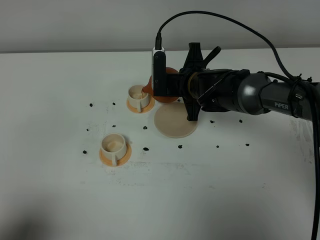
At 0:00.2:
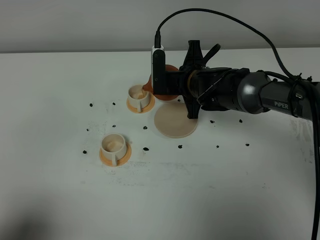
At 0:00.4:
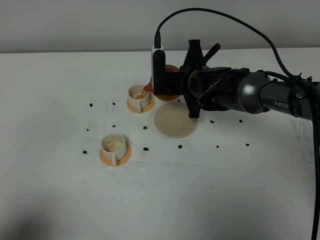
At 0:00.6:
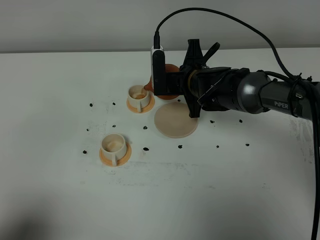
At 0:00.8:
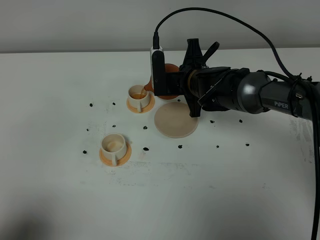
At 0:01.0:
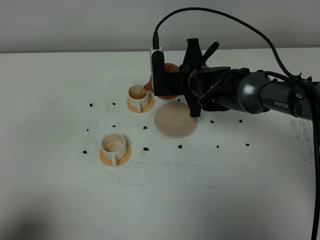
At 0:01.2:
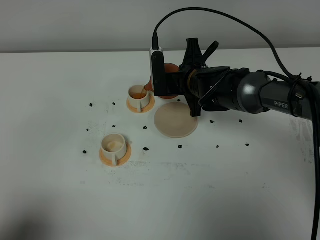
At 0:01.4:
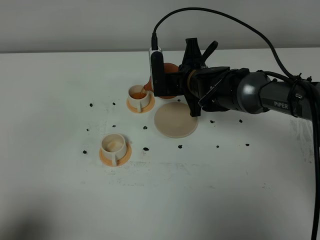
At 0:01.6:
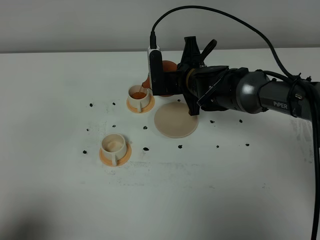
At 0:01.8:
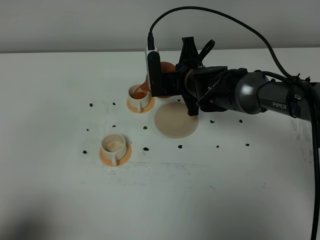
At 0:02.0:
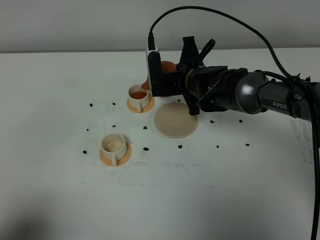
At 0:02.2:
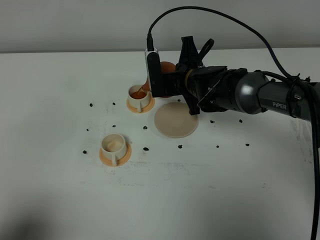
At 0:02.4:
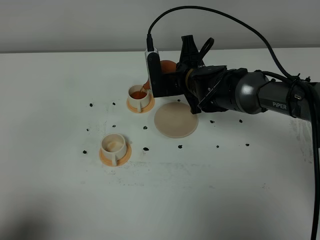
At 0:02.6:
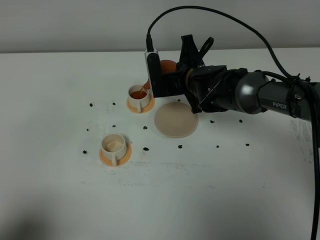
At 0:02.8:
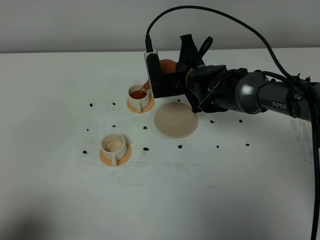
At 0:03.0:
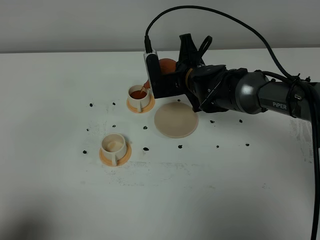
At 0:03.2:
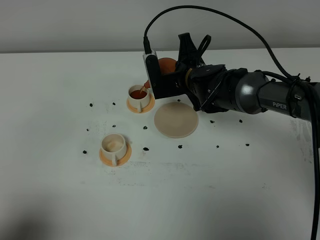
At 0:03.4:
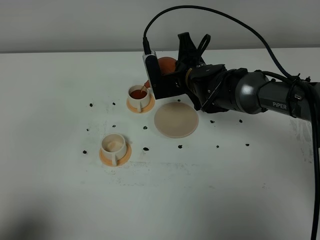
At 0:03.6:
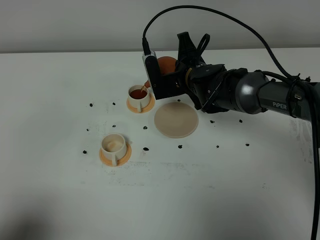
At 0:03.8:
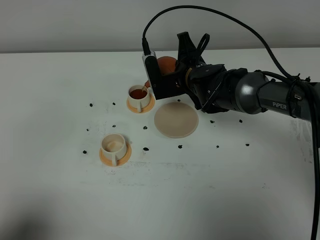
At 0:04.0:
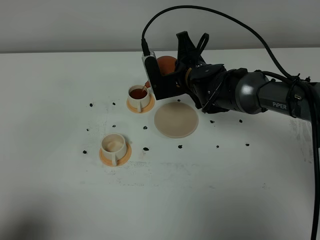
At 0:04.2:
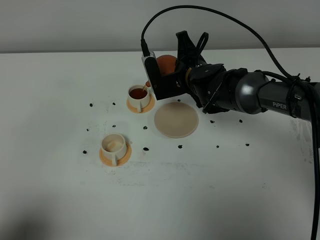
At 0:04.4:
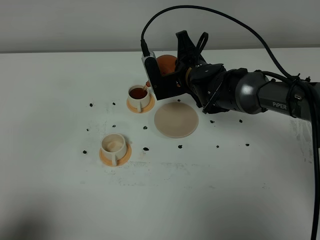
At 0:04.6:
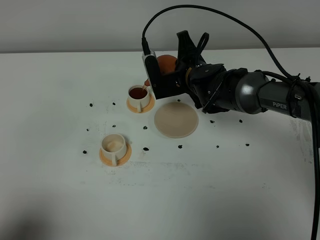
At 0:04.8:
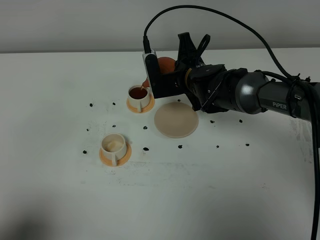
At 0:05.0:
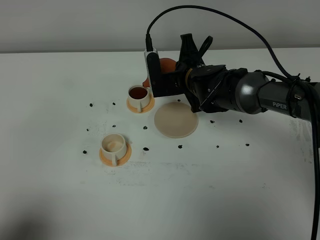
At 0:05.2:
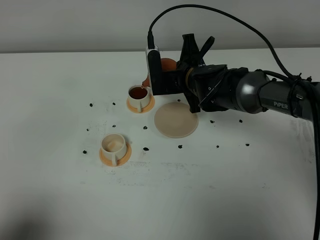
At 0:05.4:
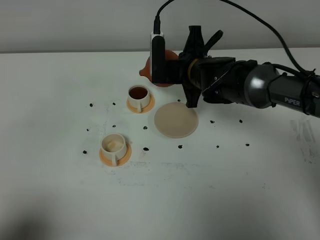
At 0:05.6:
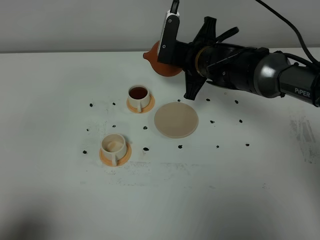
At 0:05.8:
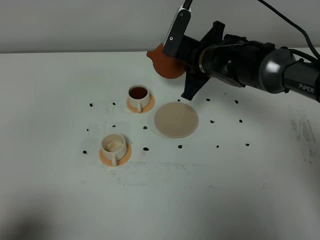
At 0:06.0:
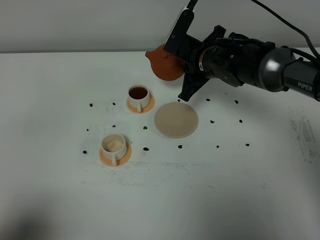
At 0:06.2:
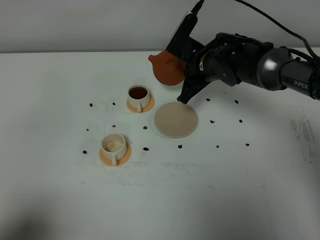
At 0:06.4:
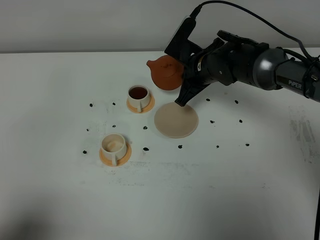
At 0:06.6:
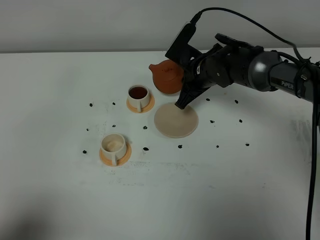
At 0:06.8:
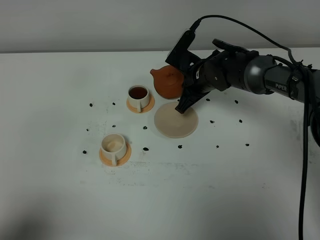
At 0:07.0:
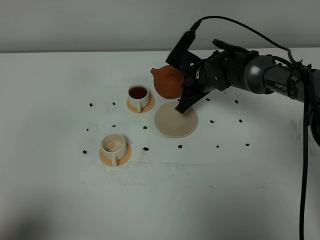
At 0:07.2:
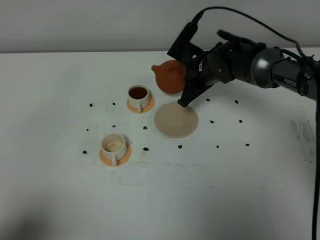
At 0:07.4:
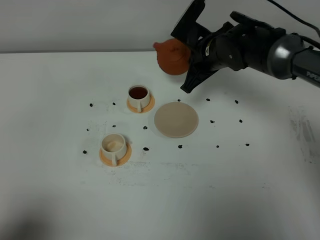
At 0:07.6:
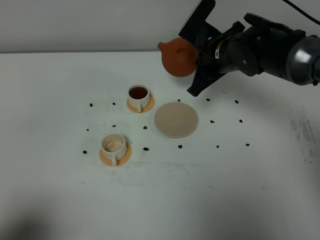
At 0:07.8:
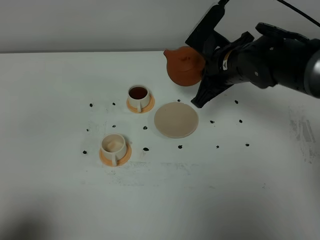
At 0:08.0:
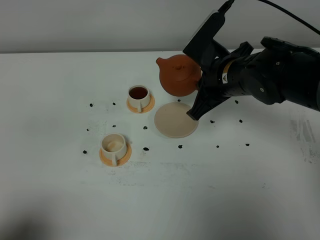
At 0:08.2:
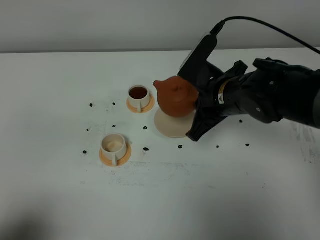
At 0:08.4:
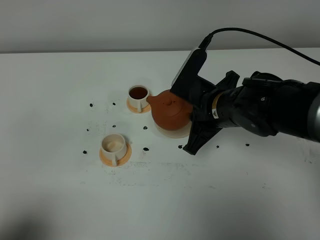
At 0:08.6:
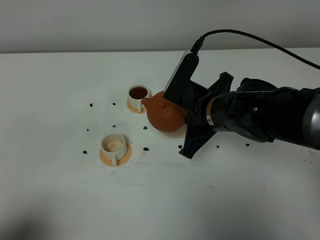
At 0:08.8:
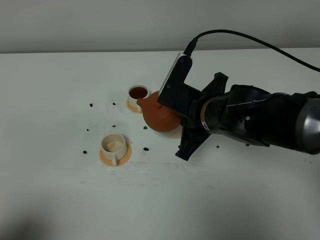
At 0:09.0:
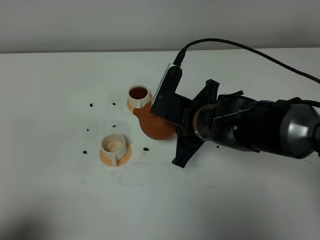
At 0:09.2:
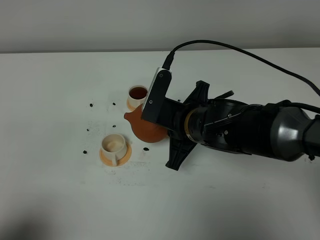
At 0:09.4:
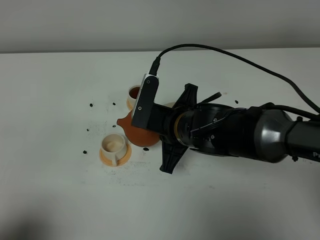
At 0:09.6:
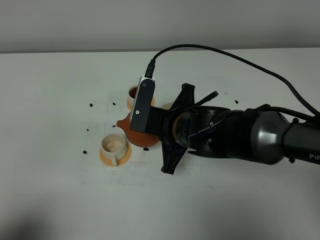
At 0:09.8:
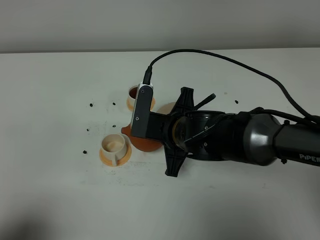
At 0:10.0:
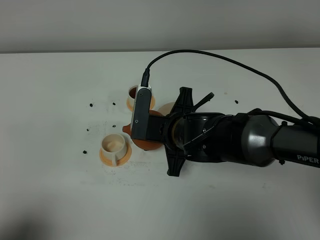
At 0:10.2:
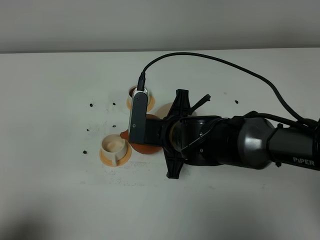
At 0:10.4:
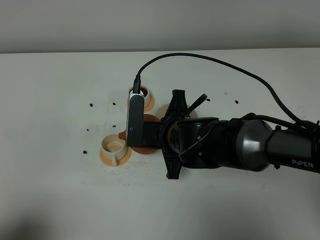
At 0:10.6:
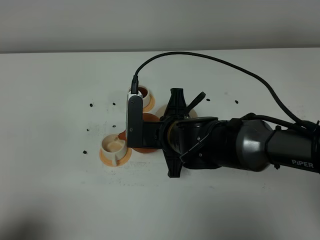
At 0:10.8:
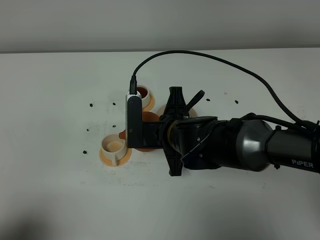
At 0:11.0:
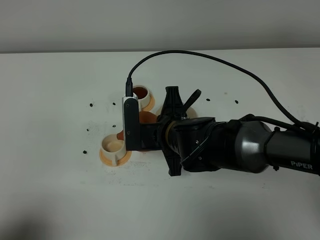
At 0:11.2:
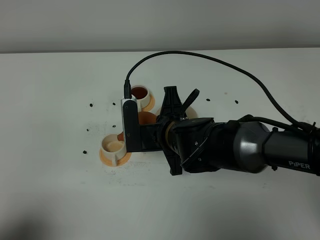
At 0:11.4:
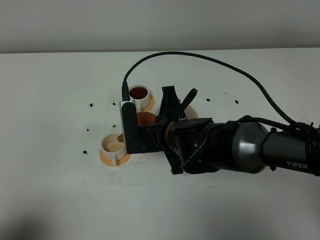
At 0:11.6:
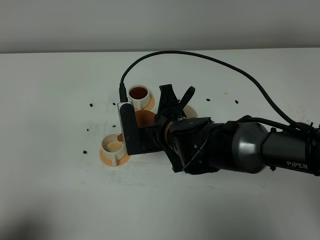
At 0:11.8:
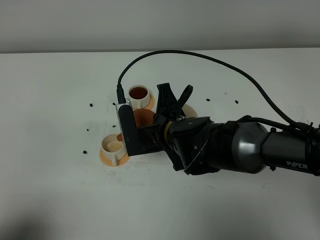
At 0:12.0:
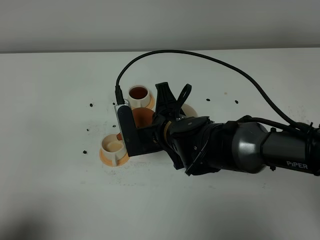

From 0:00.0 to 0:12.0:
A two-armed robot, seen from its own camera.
Task of the whole recording: grasp the brown teapot and pour the tea into the two white teacups one by one, put the brown teapot back in its original place.
From 0:00.0 to 0:03.0: There are only small adjustments of the grippers.
From 0:03.0 to 0:04.4: The grippers make only small movements.
From 0:07.6 to 0:09.0: The right gripper heads backward and to the left, covering approximately 15 cm.
From 0:10.4 to 0:12.0: There are only small adjustments of the grippers.

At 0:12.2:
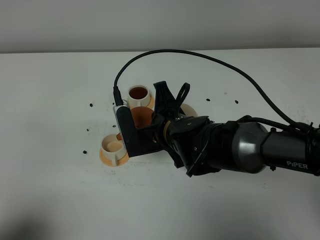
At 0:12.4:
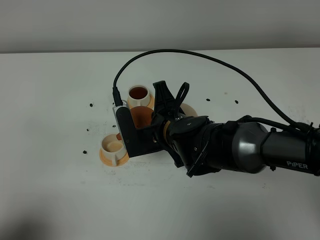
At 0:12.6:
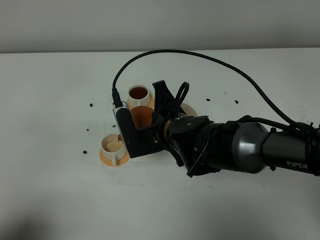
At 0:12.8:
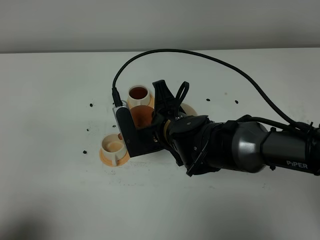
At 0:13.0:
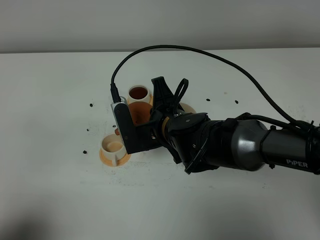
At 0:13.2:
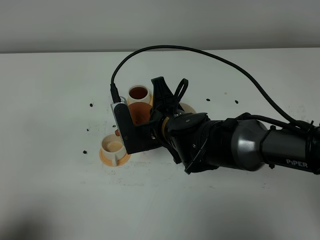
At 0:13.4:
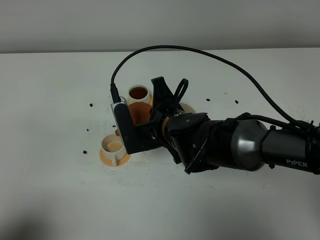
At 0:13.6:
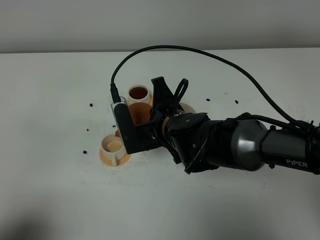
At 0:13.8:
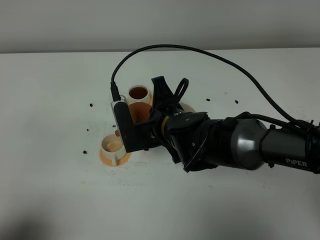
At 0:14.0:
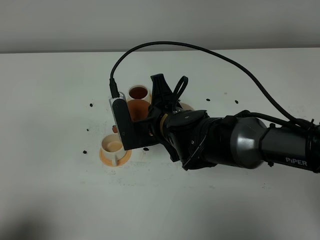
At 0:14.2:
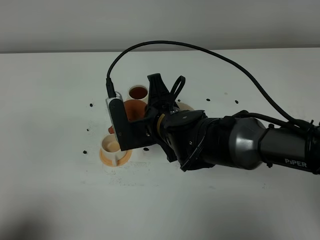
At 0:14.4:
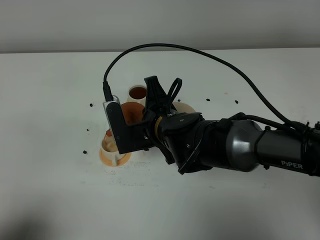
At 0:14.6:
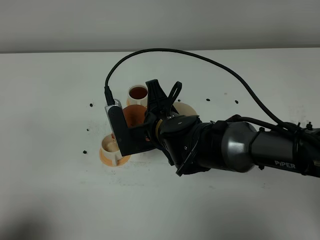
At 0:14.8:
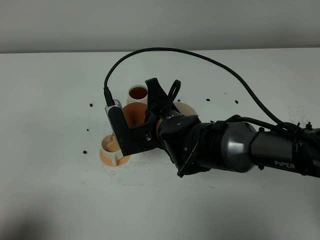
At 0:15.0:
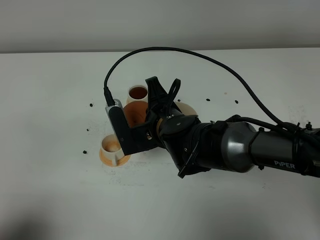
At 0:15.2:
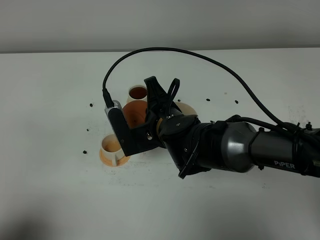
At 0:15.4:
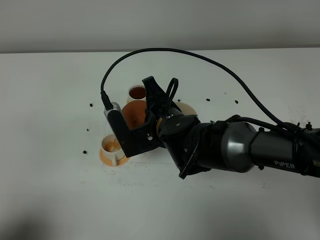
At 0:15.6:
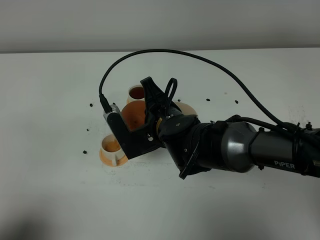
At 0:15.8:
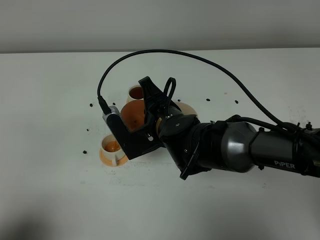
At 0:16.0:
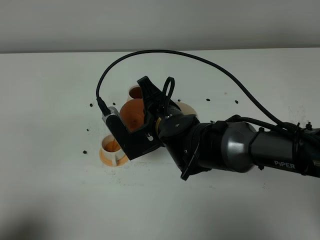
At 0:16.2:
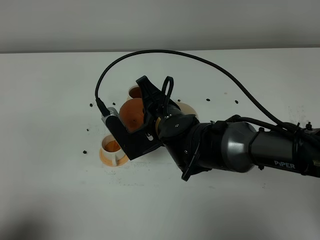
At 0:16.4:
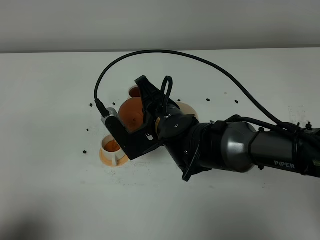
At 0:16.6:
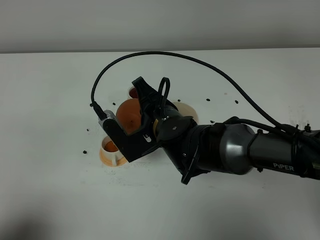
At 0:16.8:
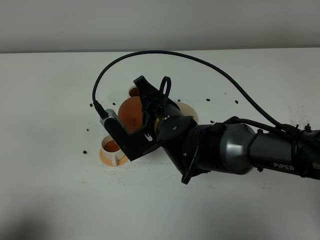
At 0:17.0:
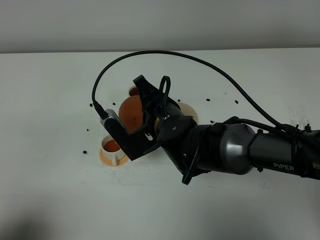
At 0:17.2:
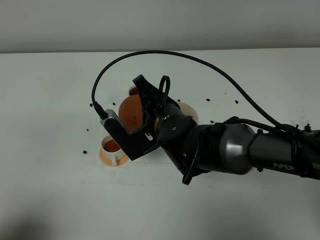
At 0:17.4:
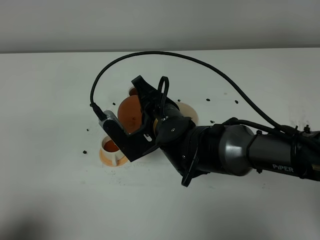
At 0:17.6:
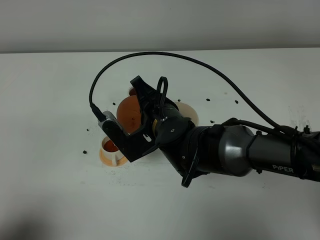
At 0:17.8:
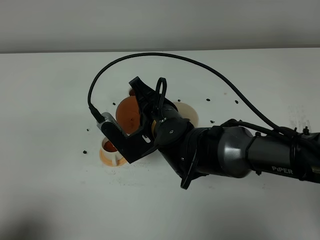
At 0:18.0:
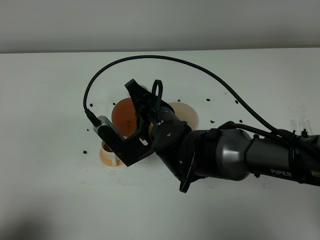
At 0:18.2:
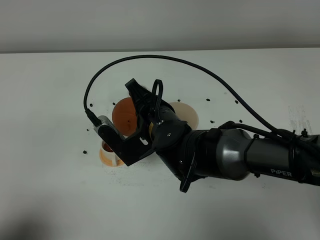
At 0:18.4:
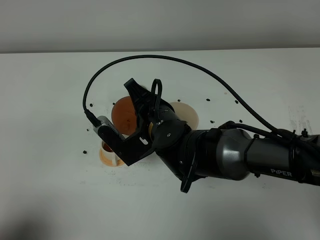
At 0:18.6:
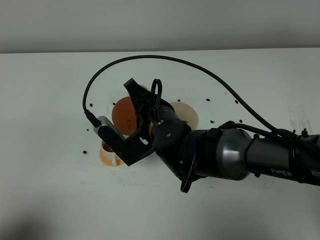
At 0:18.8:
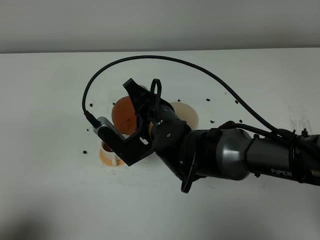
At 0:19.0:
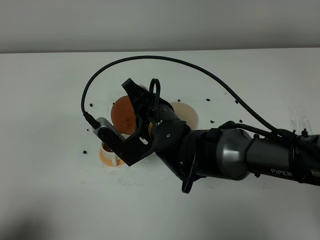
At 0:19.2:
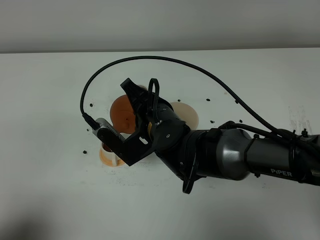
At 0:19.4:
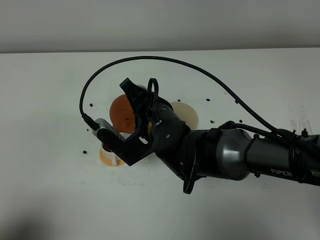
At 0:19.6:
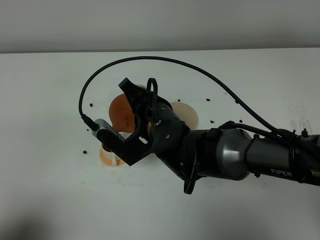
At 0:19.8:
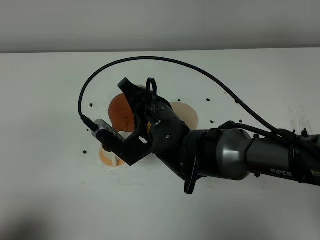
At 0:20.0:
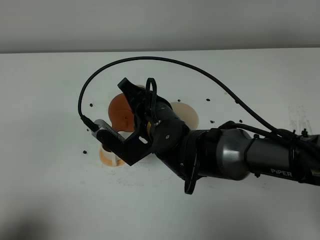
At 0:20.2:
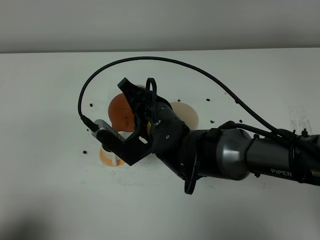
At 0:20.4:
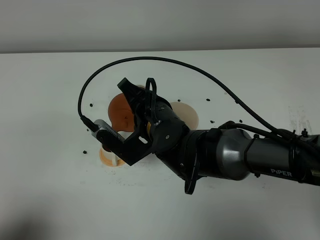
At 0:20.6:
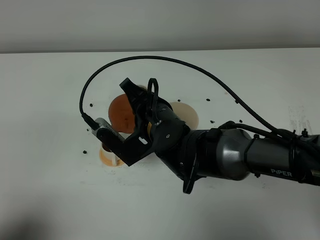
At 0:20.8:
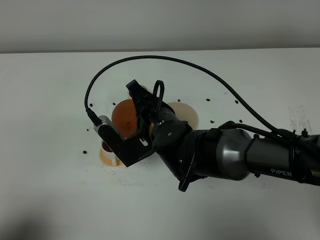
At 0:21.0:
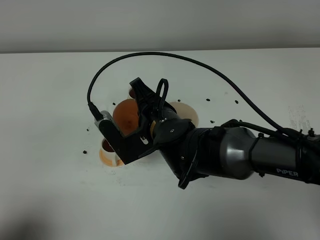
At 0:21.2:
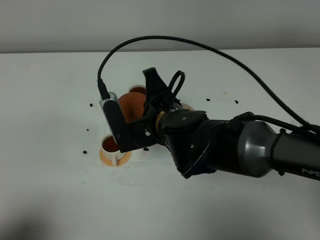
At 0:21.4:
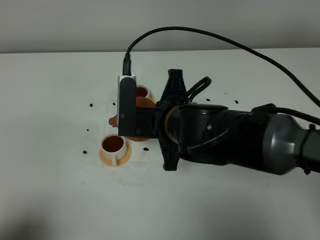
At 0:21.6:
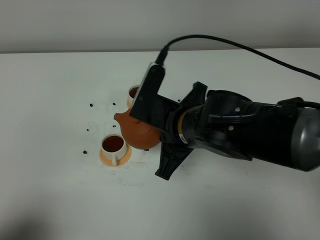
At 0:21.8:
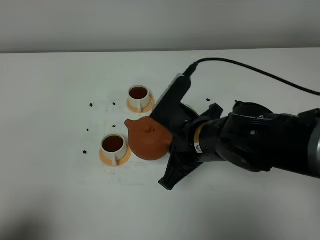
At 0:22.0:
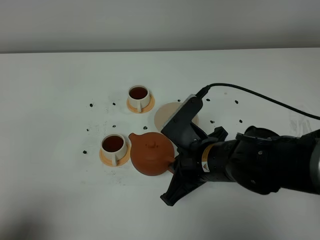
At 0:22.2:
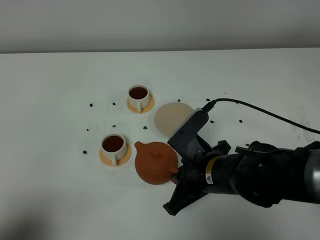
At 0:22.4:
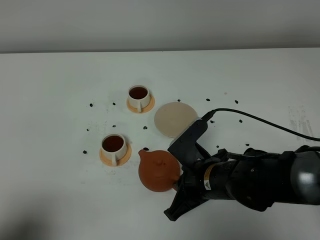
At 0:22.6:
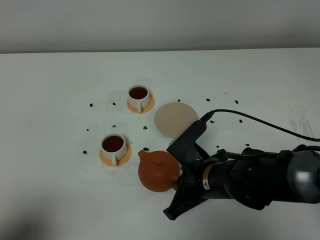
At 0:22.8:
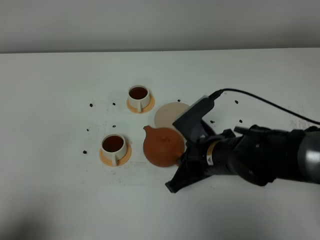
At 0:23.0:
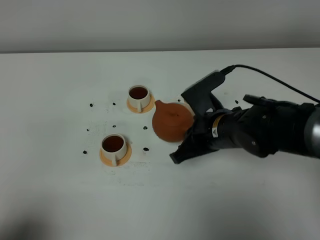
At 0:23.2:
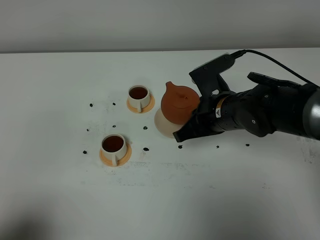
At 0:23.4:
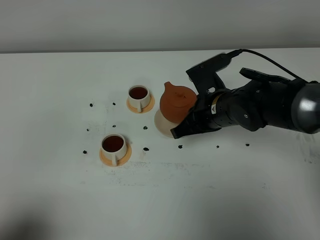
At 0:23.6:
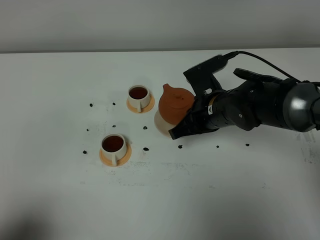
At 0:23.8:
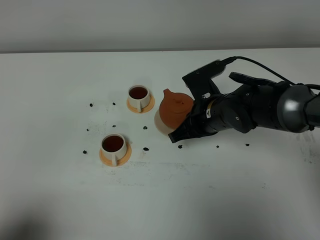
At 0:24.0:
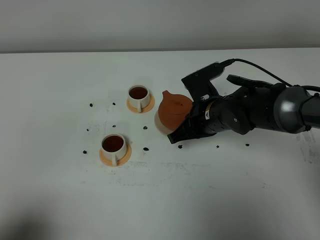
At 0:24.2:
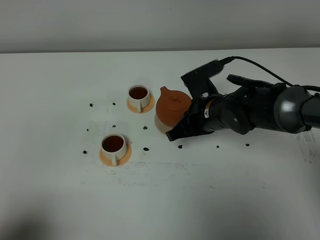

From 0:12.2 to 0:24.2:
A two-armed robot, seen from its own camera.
Task of the whole recording: grasp the brown teapot and pour the tea into the two white teacups one by one, put the brown teapot back in its original place.
Step, from 0:12.2 to 0:21.0: Pour tea into the teacup with the right gripper.
From 0:12.2 to 0:13.8: Neither gripper changes place.
From 0:13.8 to 0:16.6: The grippers stay close to where they were, moving slightly.
From 0:16.6 to 0:18.2: Both grippers stay about where they are.
From 0:18.2 to 0:19.8: The grippers move only a little.
From 0:21.2 to 0:22.6: The right gripper goes roughly 10 cm downward, to the right and backward.
From 0:22.6 to 0:24.2: The right gripper goes roughly 10 cm forward.
